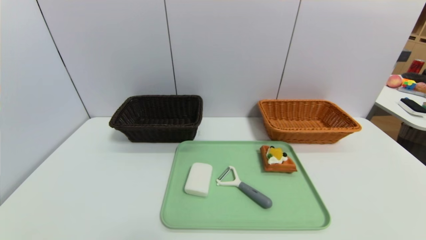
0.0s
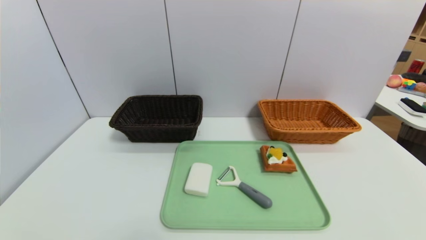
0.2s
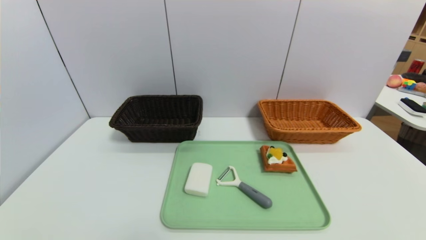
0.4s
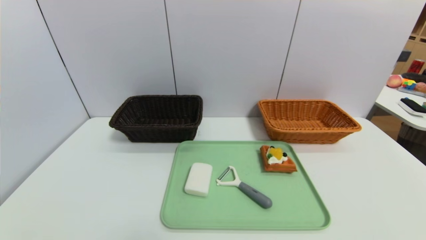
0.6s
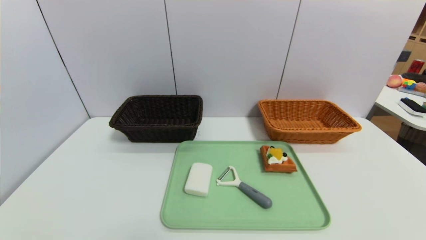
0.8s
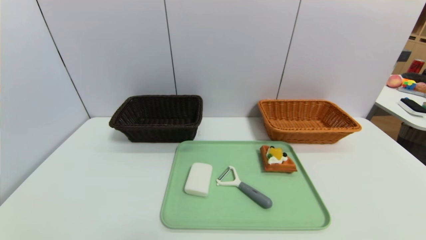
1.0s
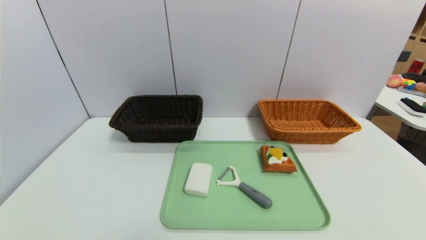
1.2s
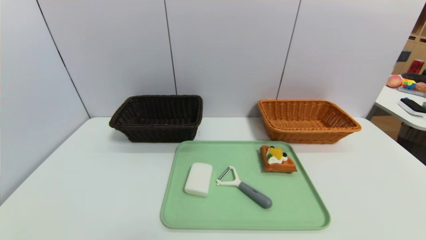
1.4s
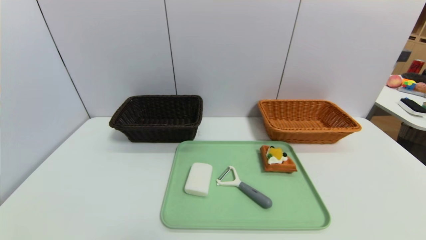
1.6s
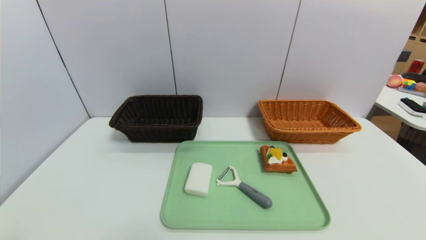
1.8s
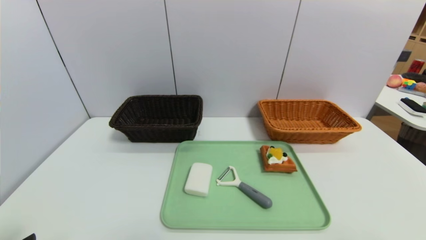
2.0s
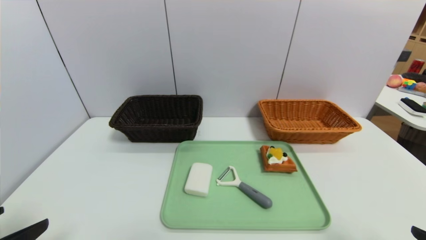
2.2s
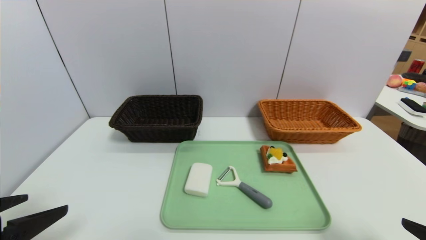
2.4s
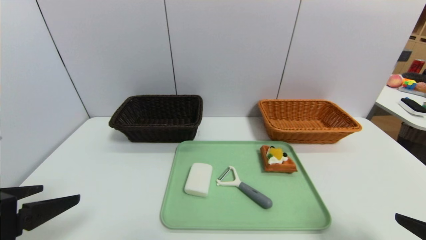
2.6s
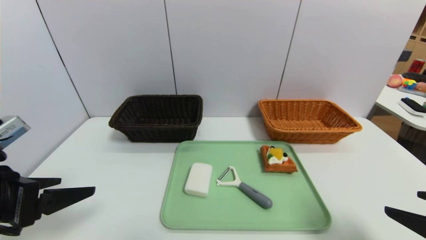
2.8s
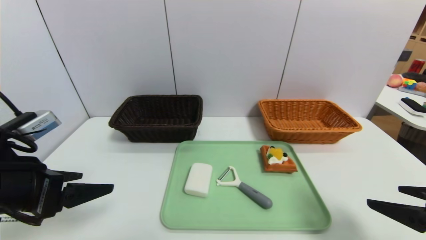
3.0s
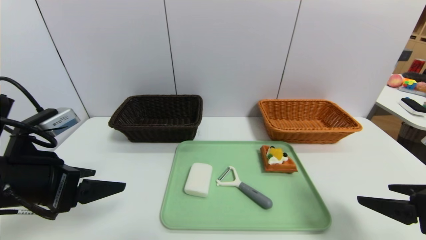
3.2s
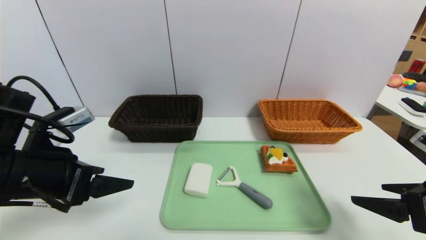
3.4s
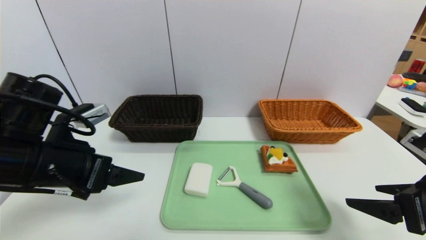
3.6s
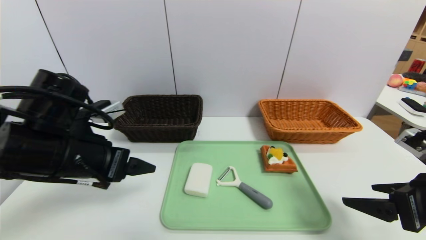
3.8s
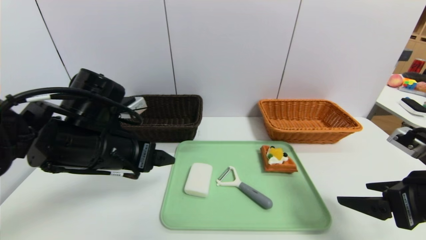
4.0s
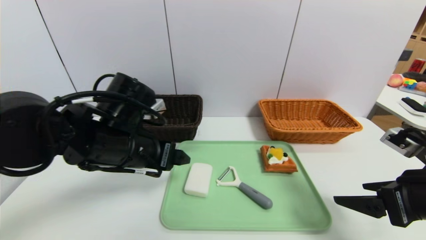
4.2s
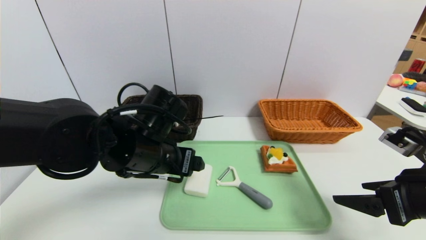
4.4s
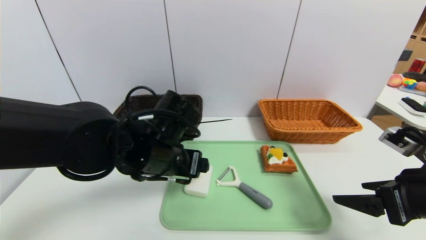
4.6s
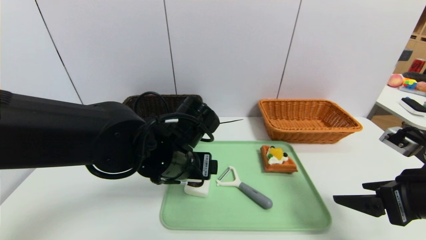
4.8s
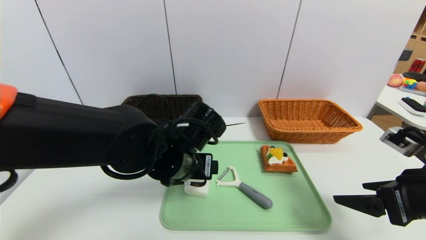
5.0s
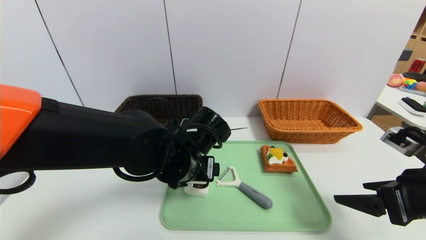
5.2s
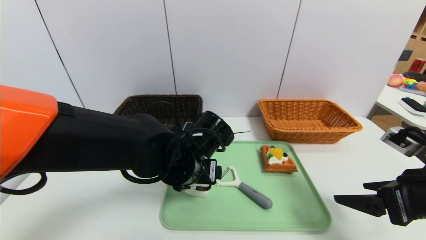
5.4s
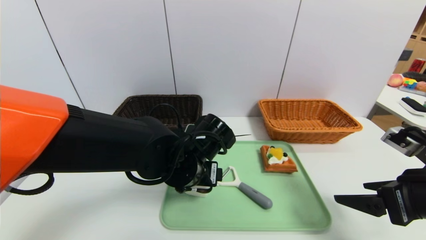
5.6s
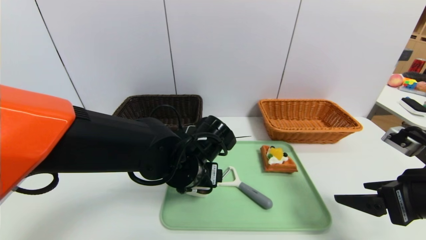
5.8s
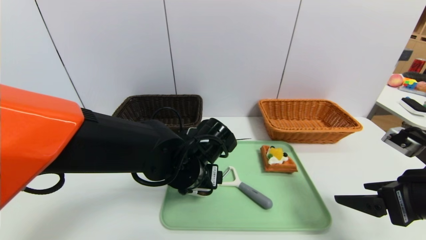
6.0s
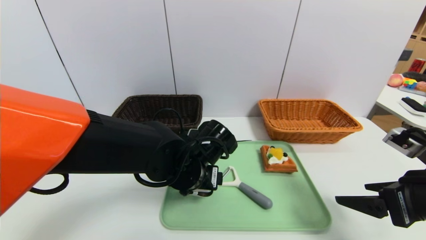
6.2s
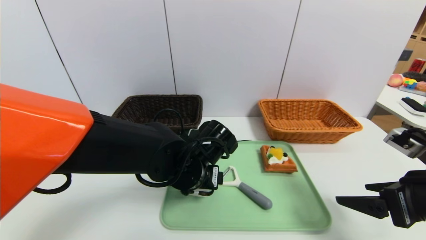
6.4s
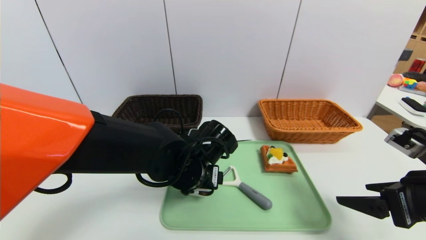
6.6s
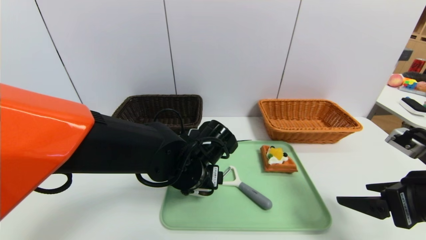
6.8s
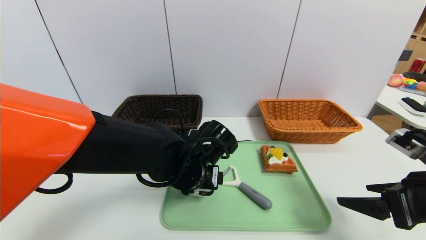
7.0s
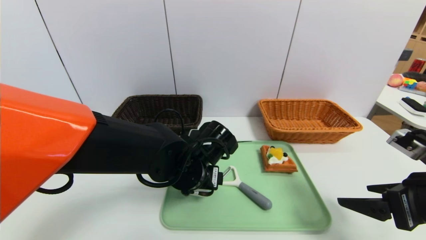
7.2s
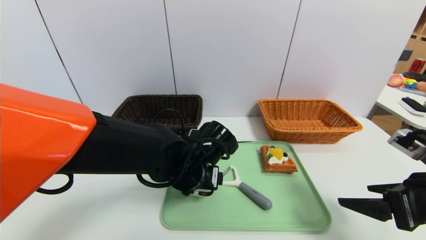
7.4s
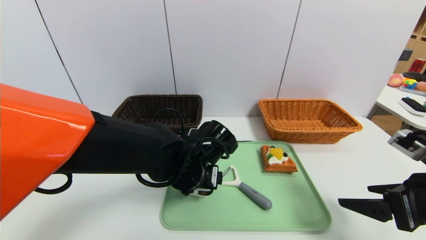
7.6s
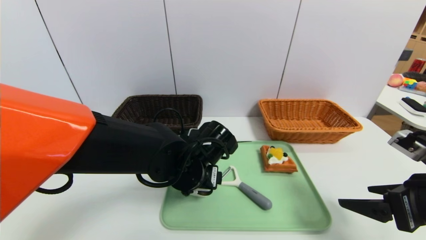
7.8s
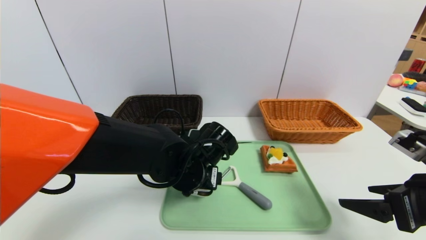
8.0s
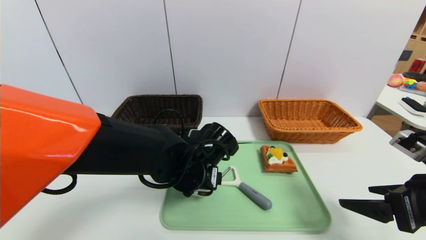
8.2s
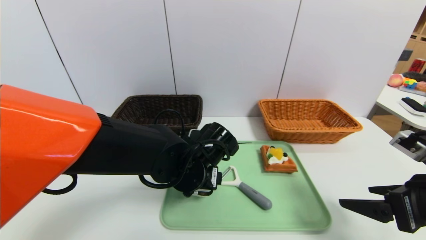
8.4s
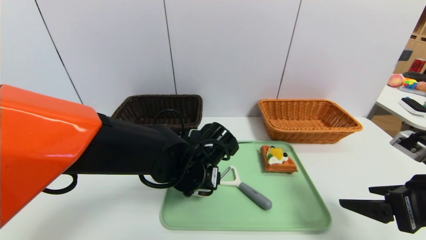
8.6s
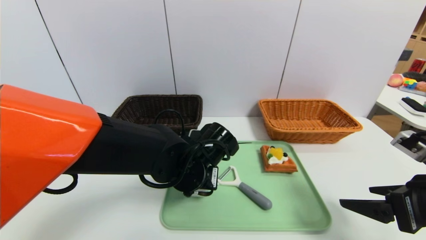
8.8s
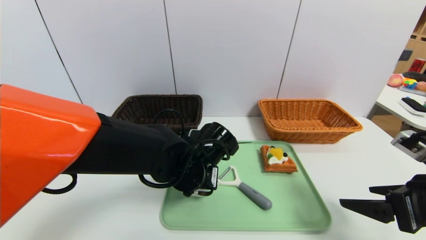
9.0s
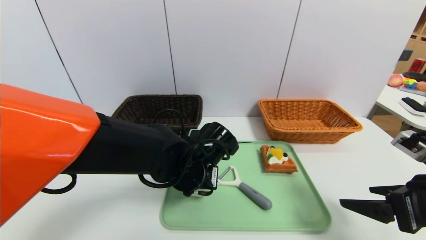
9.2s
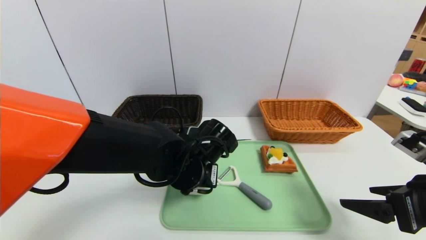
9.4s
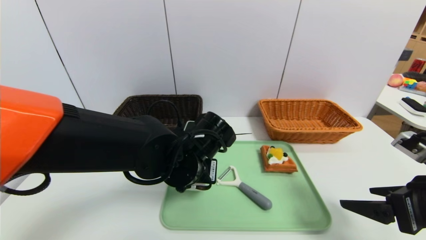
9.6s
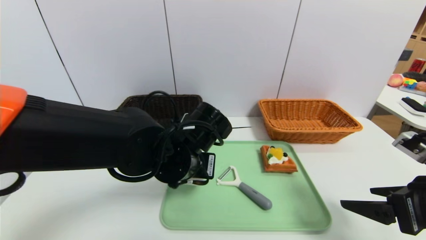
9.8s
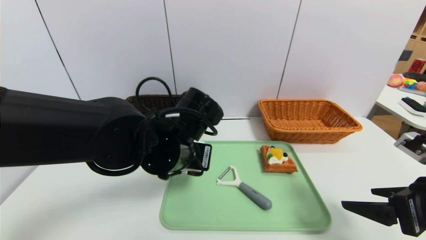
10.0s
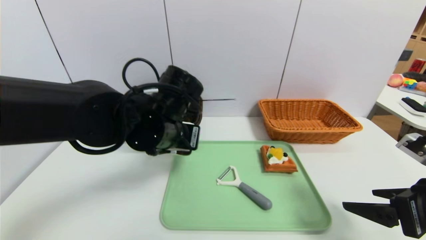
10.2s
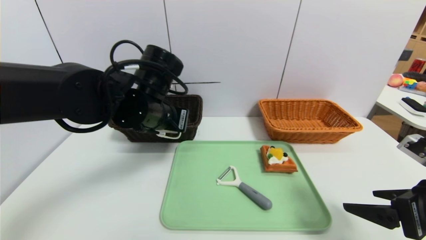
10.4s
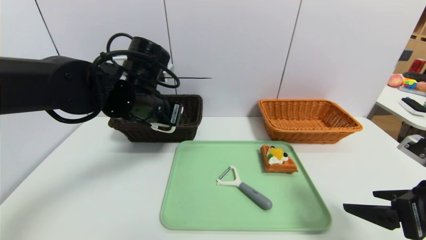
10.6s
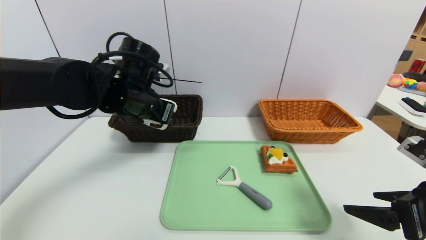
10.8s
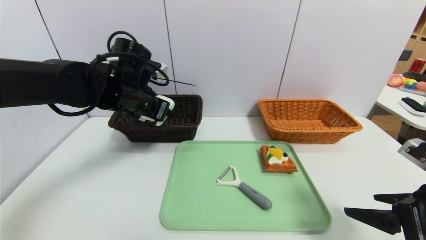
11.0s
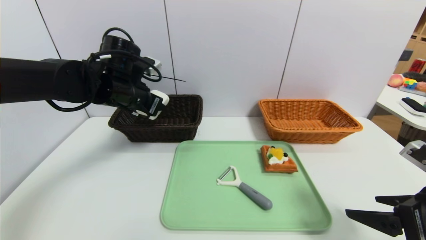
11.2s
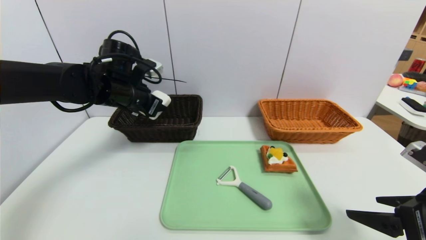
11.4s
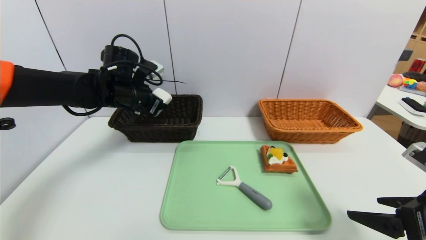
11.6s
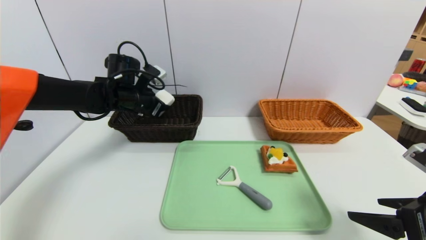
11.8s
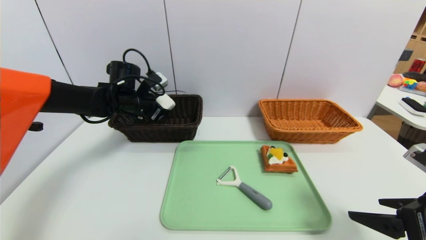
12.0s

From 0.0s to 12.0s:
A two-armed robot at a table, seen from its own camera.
Task of the whole recording: place the food in the right basket with the right gripper, and place the non food items in the left basket with the left gripper.
From 1.6s to 3.0s: The right gripper shifts some 15 cm forward. The left gripper shifts approximately 20 cm forward and upward.
From 3.0s to 4.4s: The left gripper moves to the right and forward, roughly 20 cm, while the right gripper changes place by approximately 5 cm.
From 4.4s to 6.0s: The left gripper moves to the right and downward, some 10 cm.
From 6.0s to 7.6s: Both grippers stay about where they are.
From 7.6s to 9.0s: The left gripper closes its fingers.
From 9.0s to 10.4s: The left gripper goes about 15 cm upward and to the left.
From 10.4s to 12.0s: The left gripper goes roughly 20 cm forward, to the left and downward.

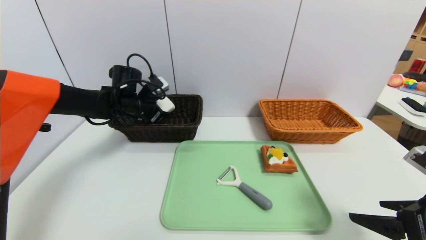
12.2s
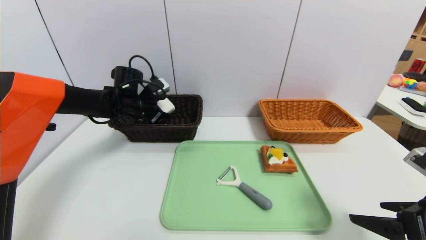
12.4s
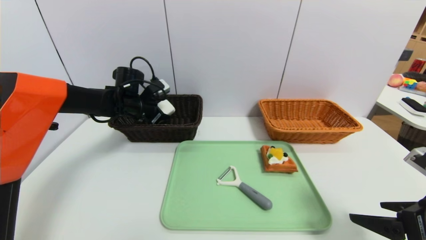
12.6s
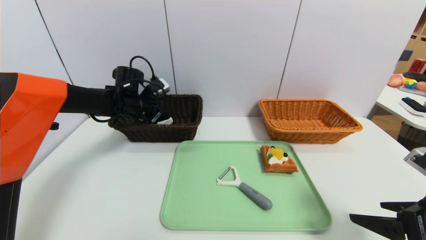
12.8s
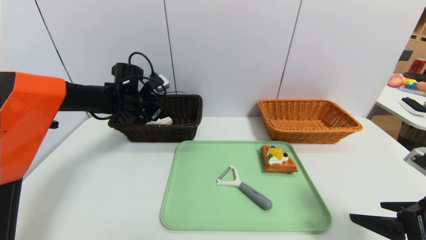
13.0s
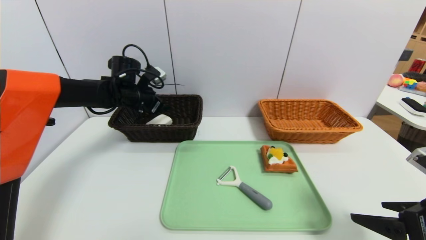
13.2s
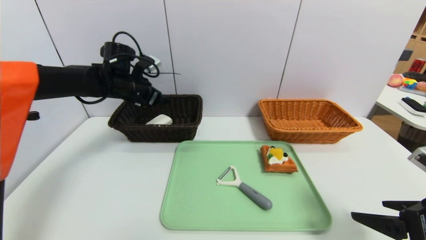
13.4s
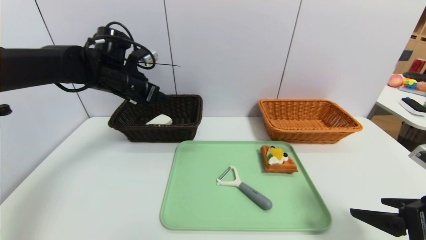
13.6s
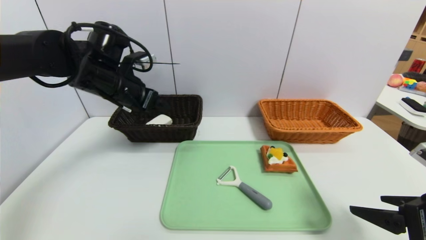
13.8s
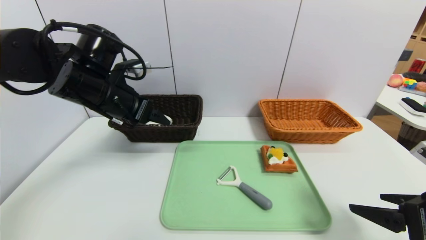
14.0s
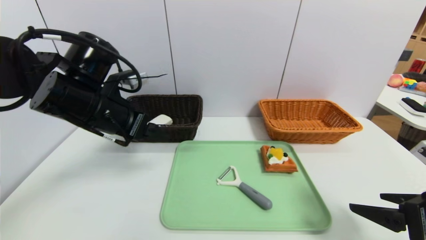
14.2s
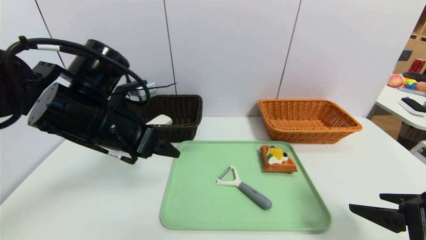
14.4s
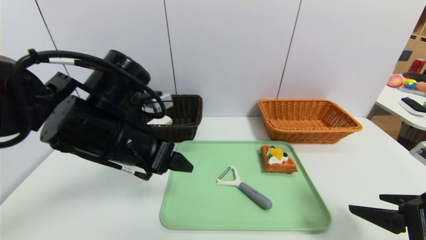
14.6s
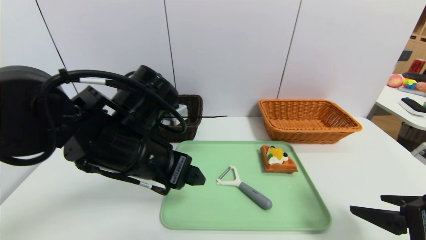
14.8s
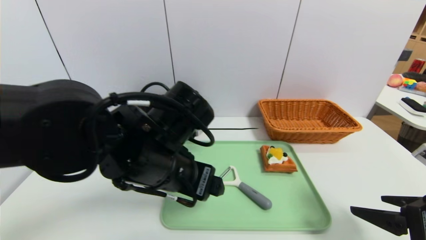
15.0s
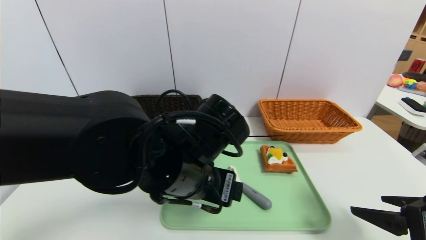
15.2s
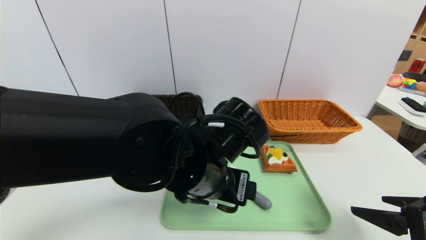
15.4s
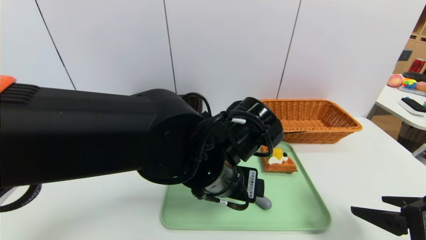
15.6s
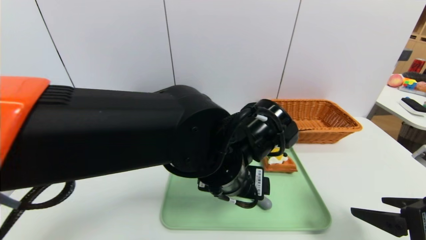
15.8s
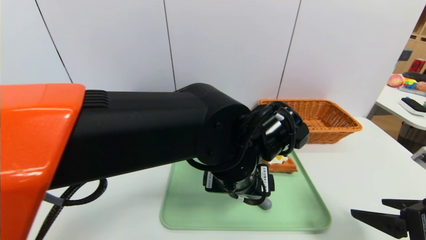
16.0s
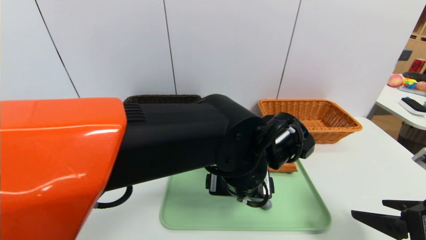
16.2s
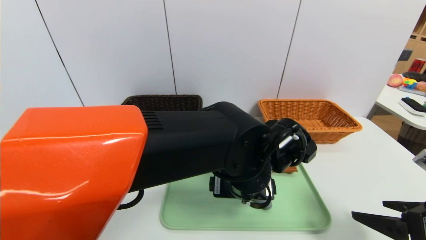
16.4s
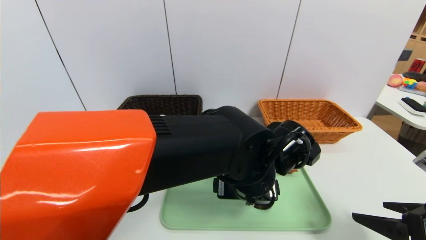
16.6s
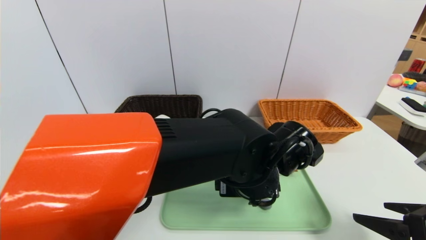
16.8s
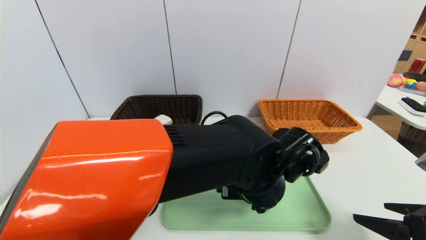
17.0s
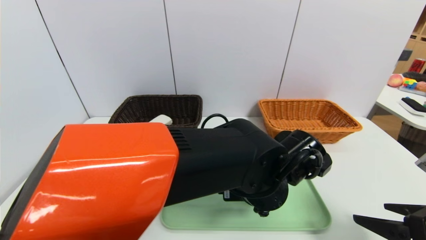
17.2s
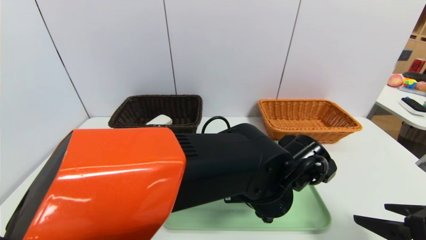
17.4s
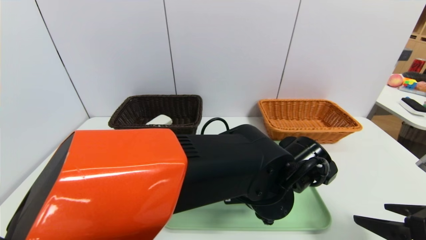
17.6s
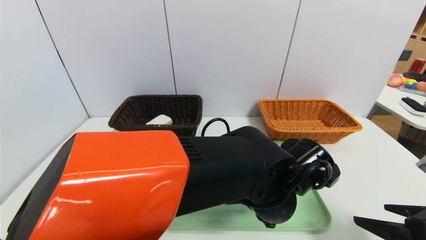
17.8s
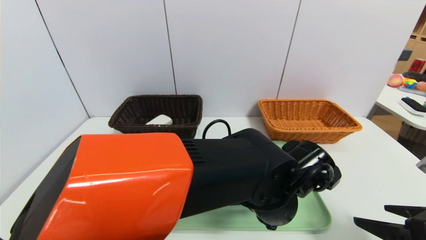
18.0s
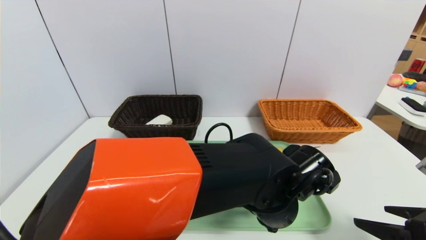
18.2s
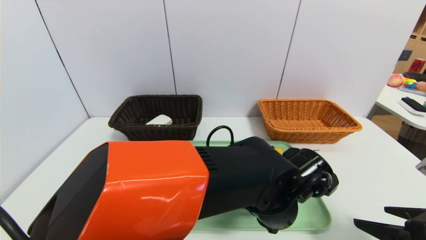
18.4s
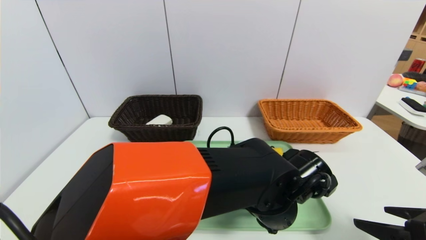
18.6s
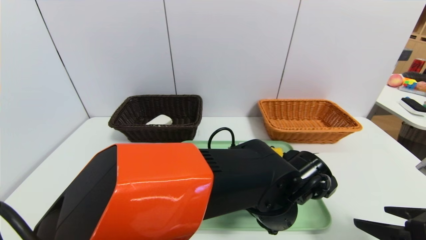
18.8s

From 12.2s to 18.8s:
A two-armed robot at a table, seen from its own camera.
Task of the whole recording: place the food in the right basket with the right gripper, and place the non food items in the left basket with the left gripper.
From 12.2s to 13.8s: The left gripper heads backward and upward, covering roughly 15 cm, and opens its fingers.
From 13.8s to 15.4s: The left gripper shifts about 25 cm to the right and backward.
From 15.4s to 17.2s: The left gripper goes approximately 10 cm to the right.
